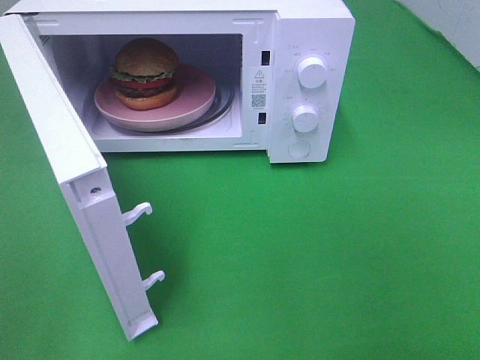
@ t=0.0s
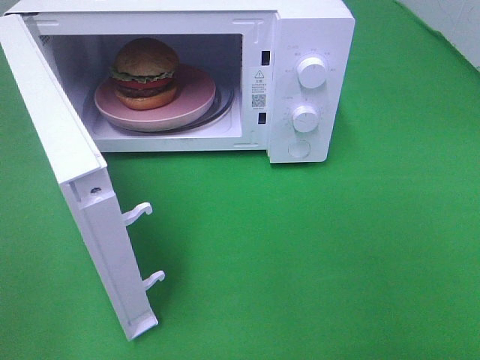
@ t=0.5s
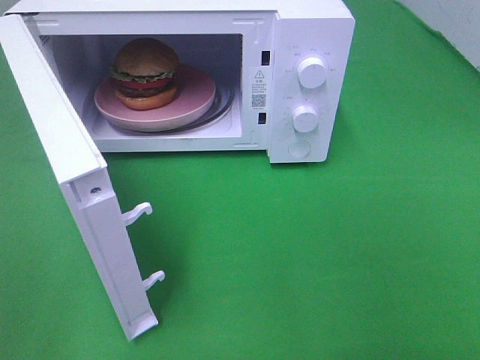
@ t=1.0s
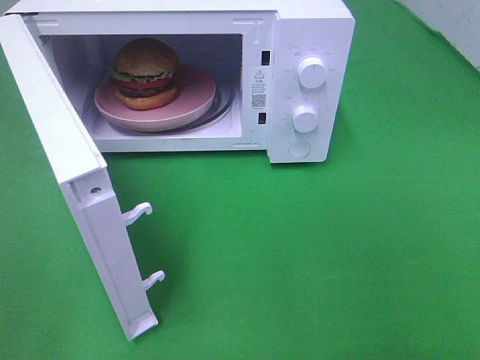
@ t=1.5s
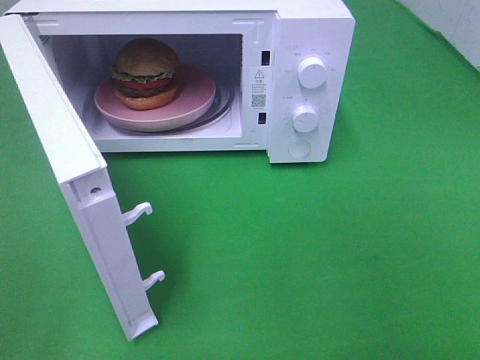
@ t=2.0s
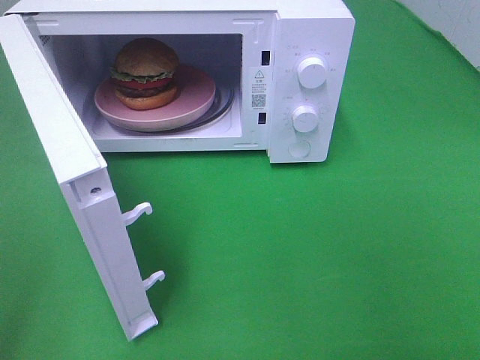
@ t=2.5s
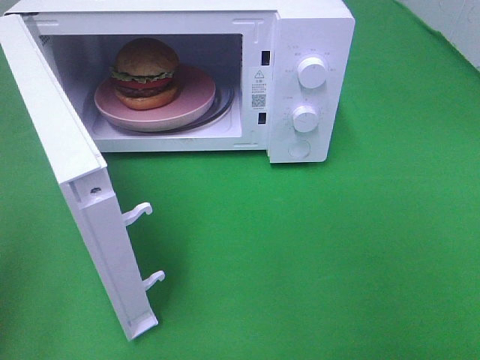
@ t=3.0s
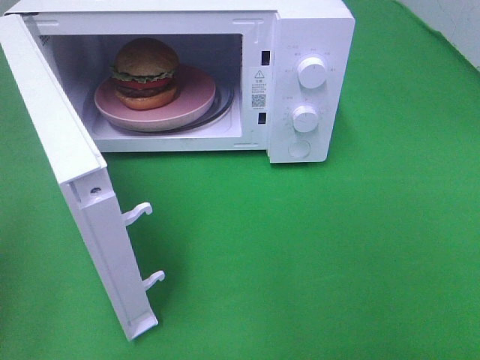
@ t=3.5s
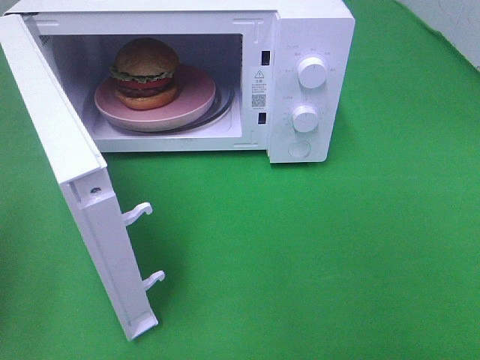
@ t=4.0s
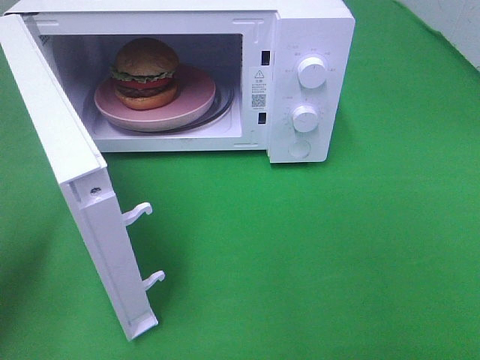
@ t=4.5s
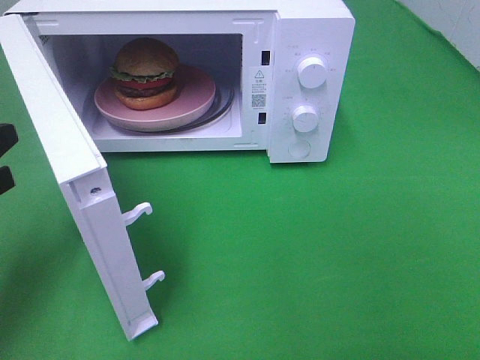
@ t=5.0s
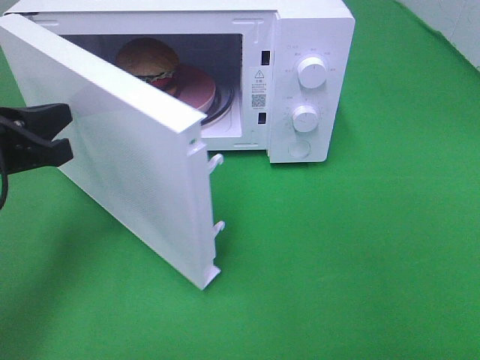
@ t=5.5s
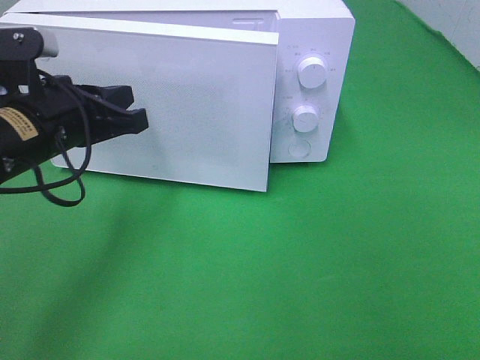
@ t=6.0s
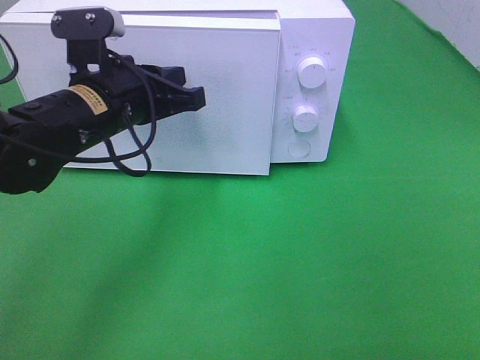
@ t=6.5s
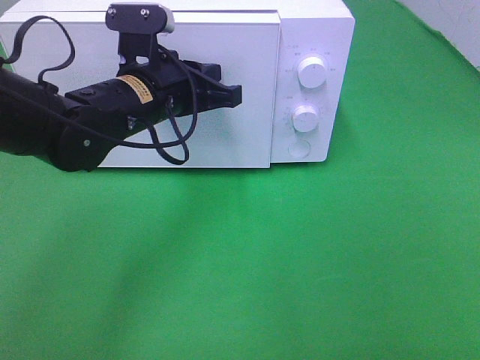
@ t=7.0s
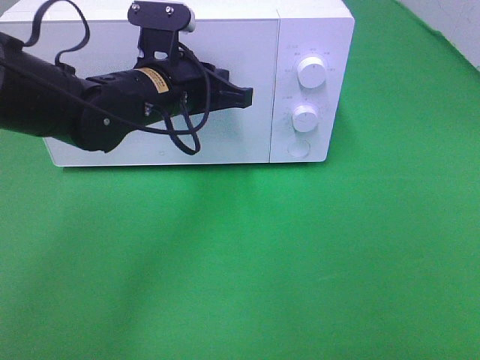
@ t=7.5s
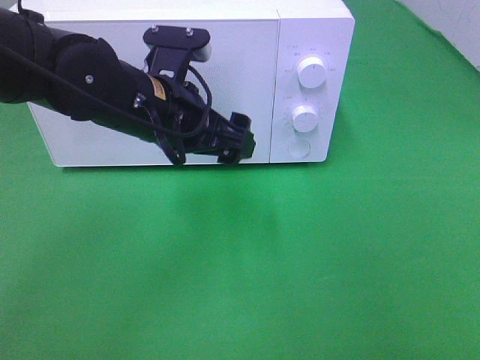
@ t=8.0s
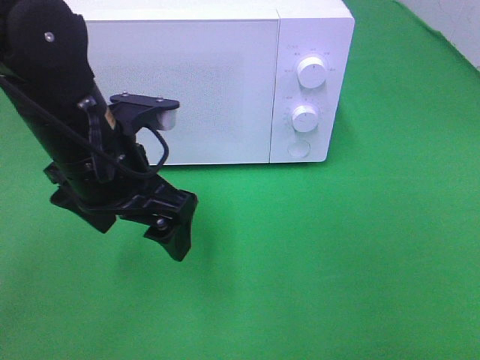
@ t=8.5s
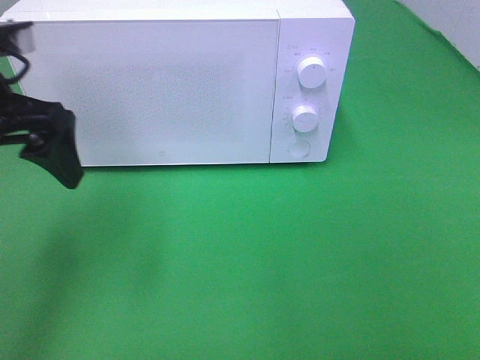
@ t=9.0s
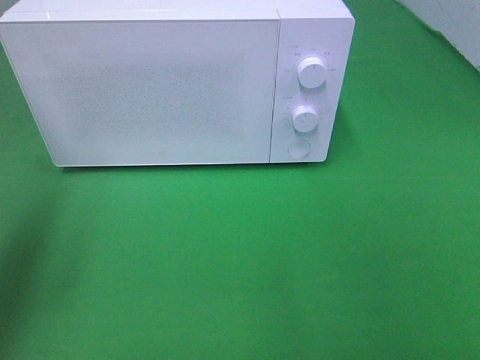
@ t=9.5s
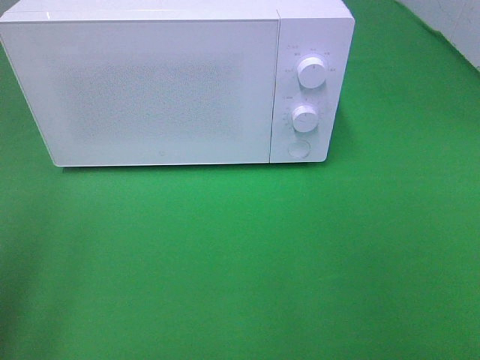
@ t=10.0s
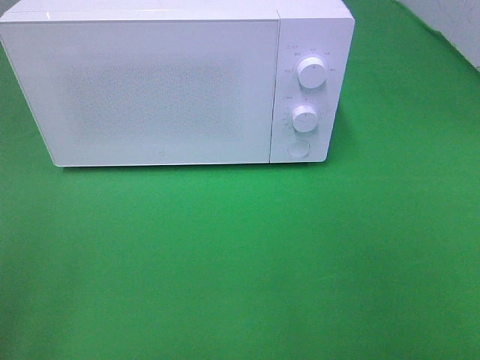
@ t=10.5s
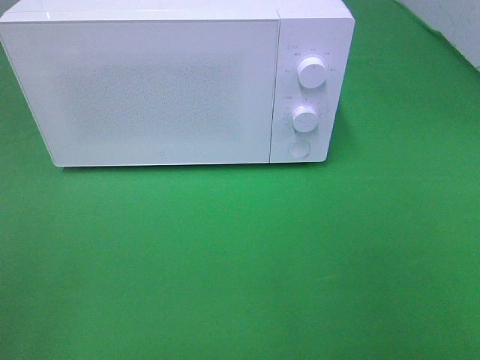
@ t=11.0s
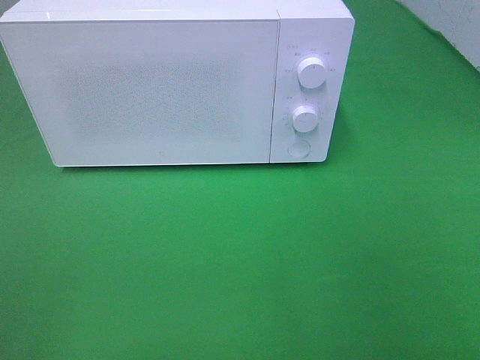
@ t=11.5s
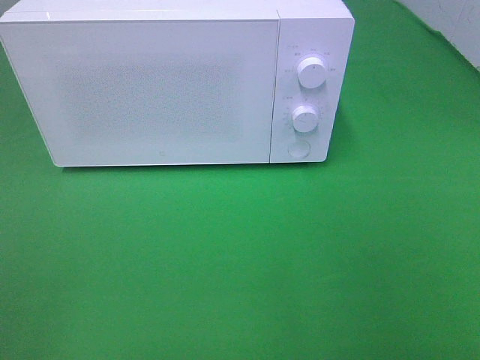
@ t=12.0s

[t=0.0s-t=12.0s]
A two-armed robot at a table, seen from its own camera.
Task of the whole recording: Heat the burger.
Step, t=0.0s to t=7.5s: Left hand: close the microwave door.
t=0.0s to t=2.0s: The two grippers keep their place.
t=4.0s to t=6.0s: The left gripper travels to the right and forward by roughly 20 cm.
t=6.0s to t=8.0s: The left gripper is displaced to the right by approximately 10 cm, and opens up.
t=8.0s to t=10.0s: The left gripper moves to the left and backward, some 30 cm.

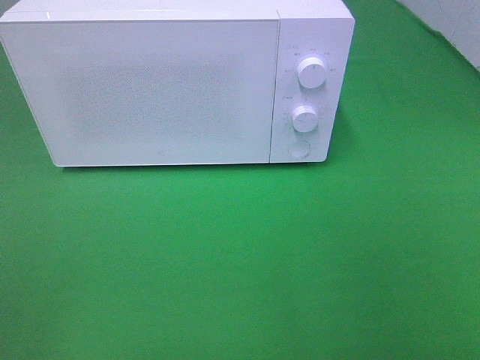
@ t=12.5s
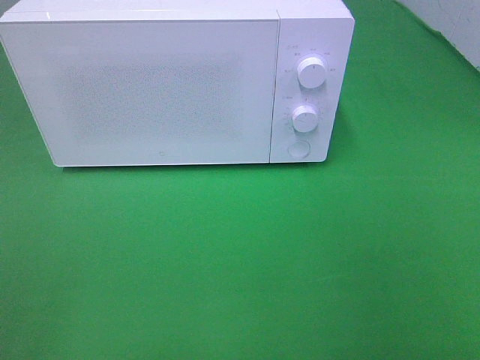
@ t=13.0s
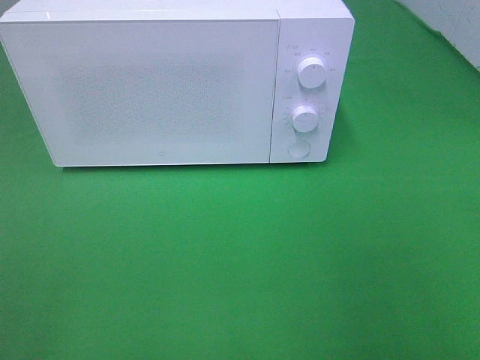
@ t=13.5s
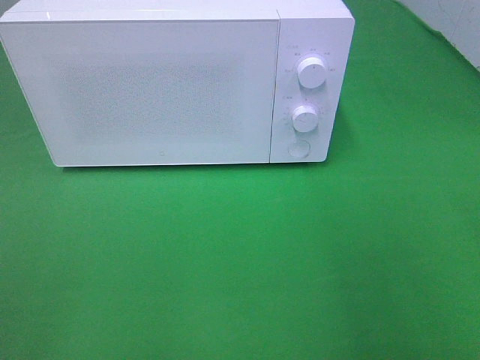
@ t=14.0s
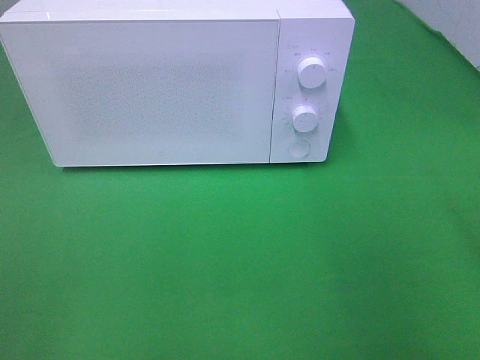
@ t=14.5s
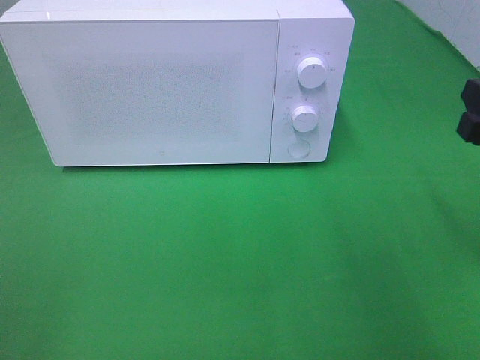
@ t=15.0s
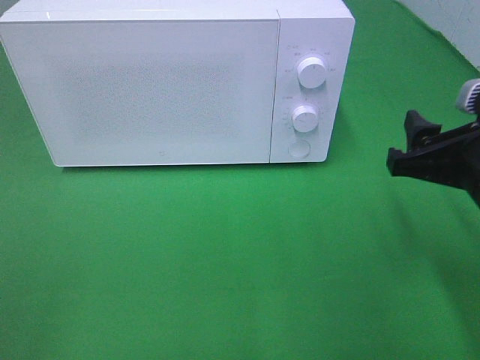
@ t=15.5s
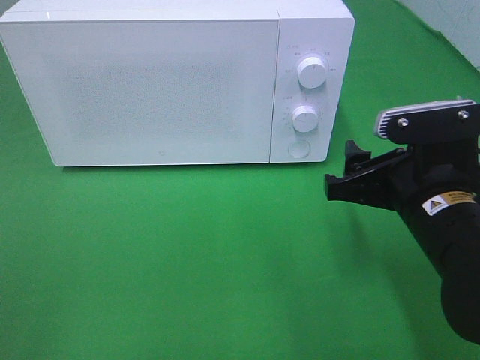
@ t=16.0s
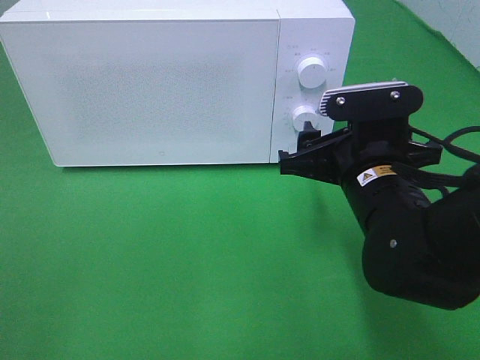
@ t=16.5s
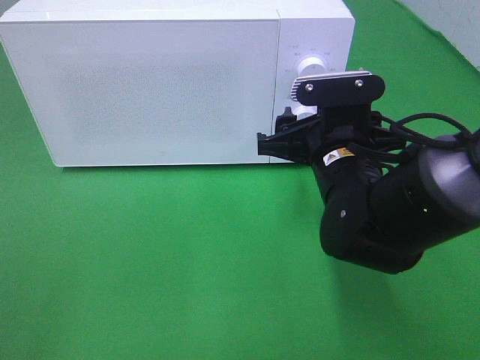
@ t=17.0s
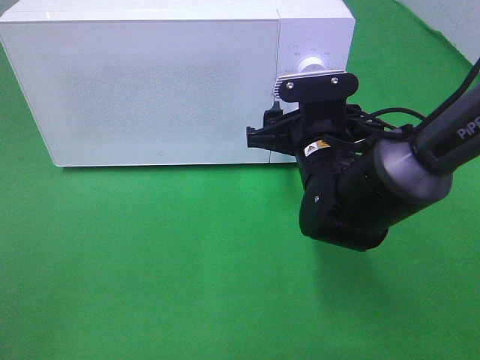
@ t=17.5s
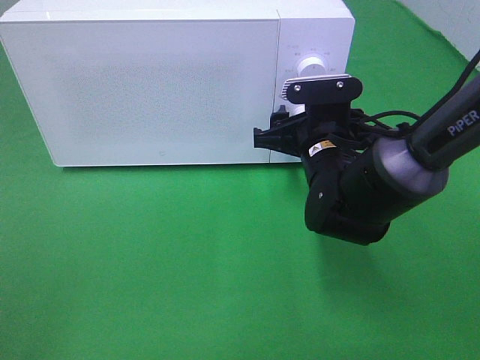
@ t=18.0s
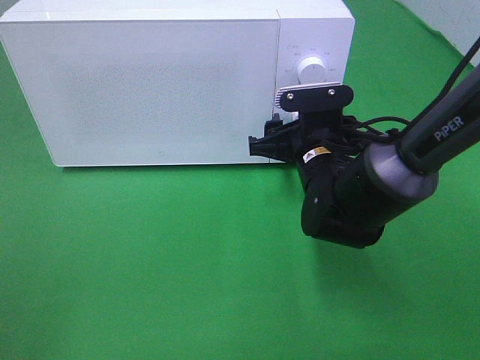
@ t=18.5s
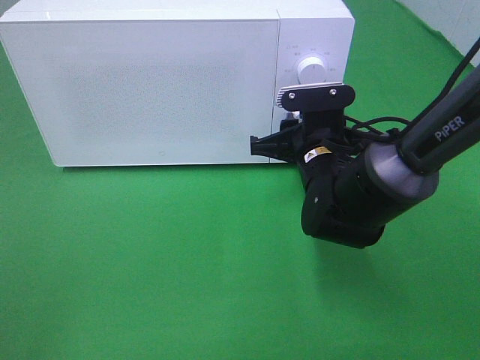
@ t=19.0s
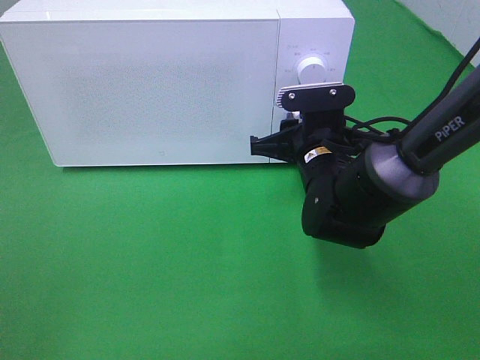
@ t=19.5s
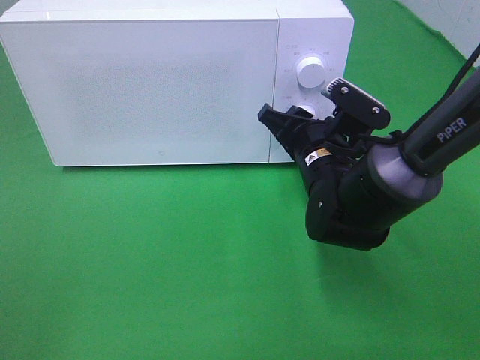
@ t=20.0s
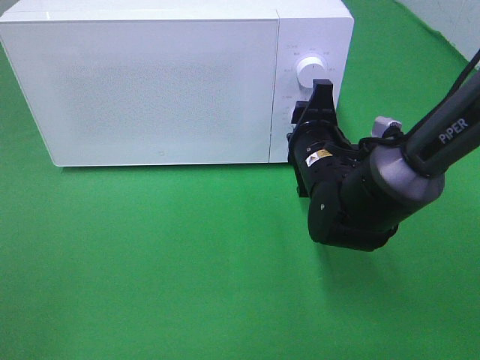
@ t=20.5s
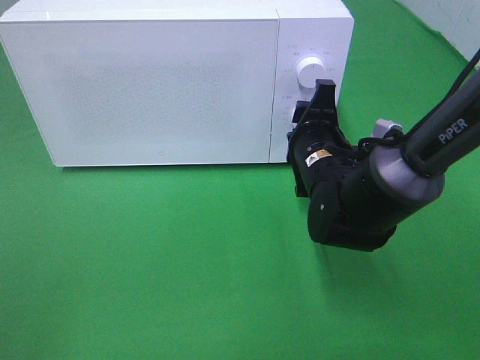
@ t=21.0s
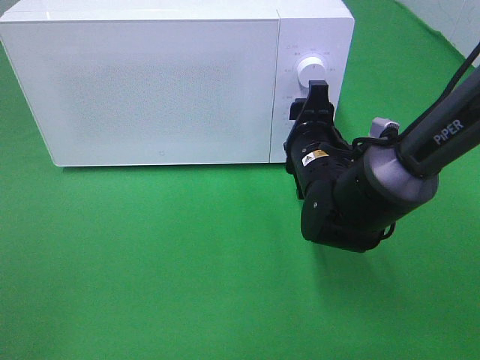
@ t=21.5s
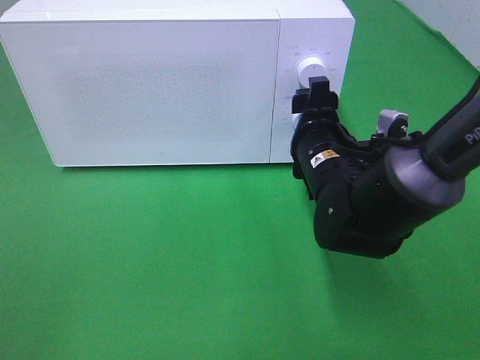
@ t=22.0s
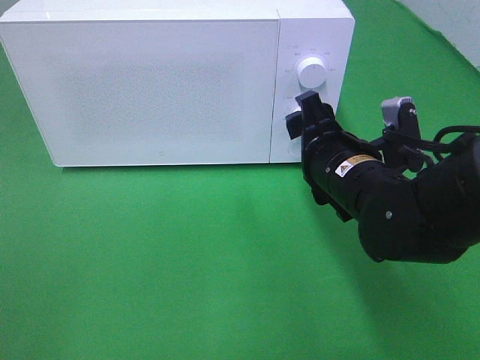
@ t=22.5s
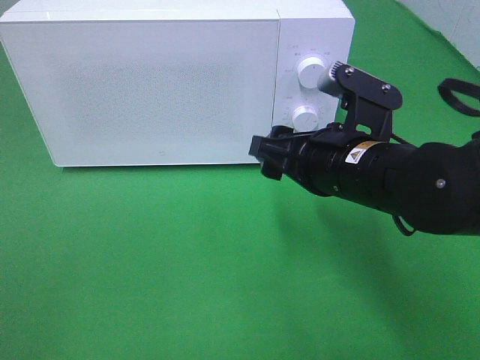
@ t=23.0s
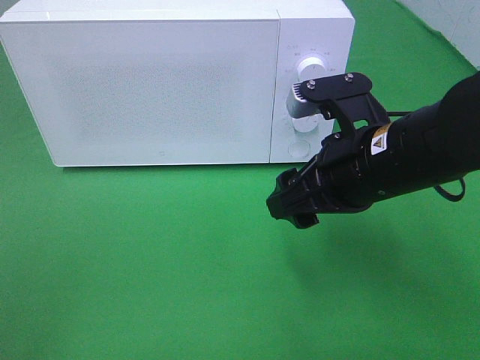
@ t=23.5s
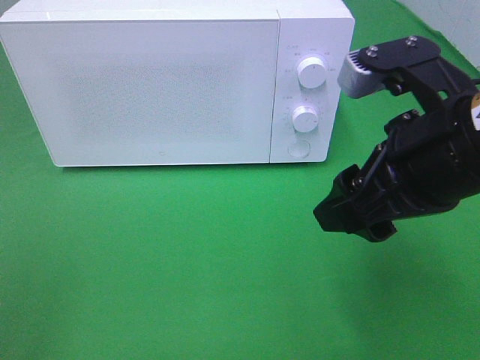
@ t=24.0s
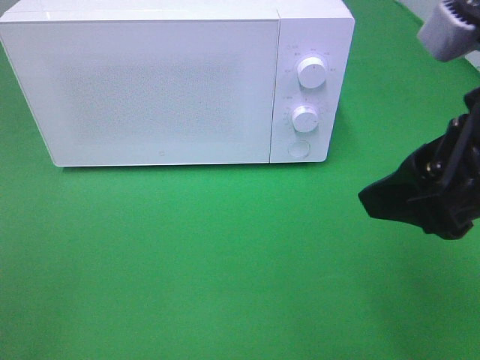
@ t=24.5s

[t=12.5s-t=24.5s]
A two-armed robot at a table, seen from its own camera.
Task of the whole recording: Heat the burger.
Step, t=12.5s to t=22.0s: Right hand: twist timer button.
t=14.5s to t=16.5s: The right gripper travels to the left, downward and forward by about 20 cm.
t=16.5s to t=18.5s: The right gripper is displaced forward by some 10 cm.
t=20.5s to t=22.5s: The right gripper travels backward by some 5 cm.
t=22.5s to t=24.5s: The right gripper heads upward, backward and to the right, covering roughly 20 cm.

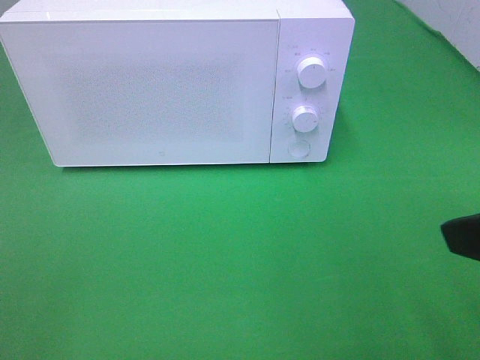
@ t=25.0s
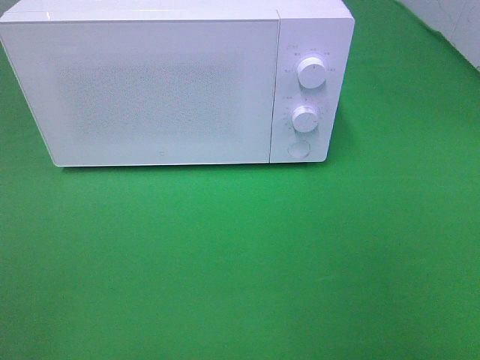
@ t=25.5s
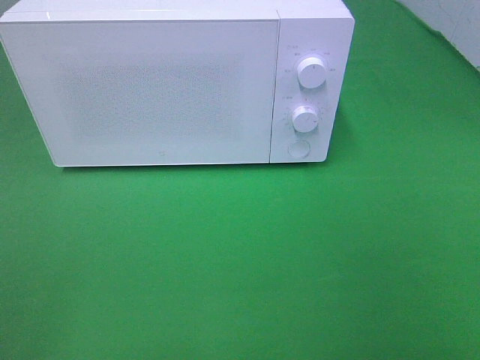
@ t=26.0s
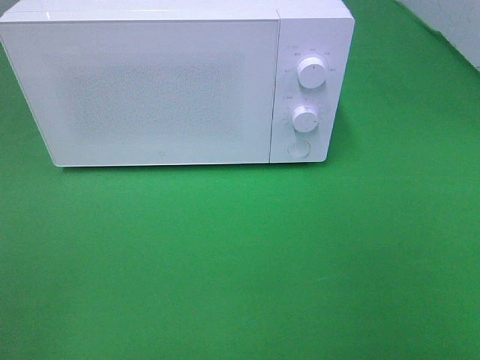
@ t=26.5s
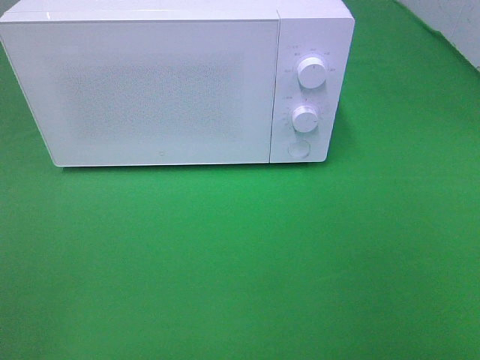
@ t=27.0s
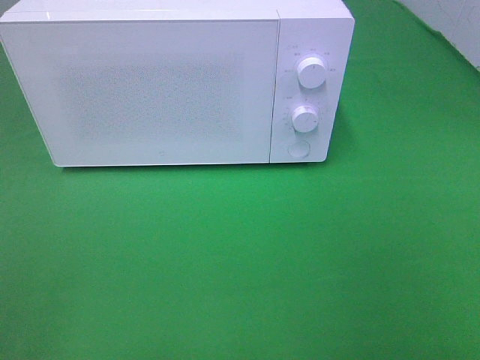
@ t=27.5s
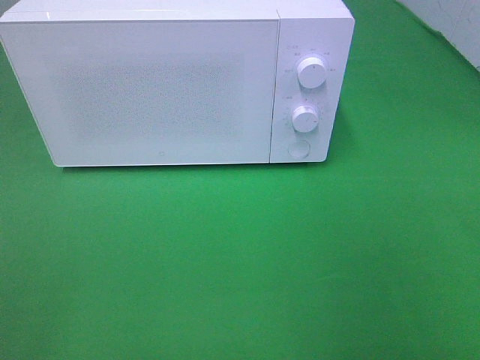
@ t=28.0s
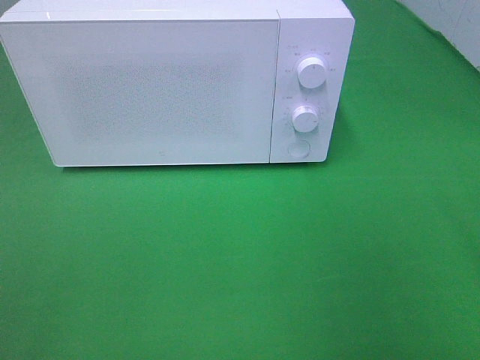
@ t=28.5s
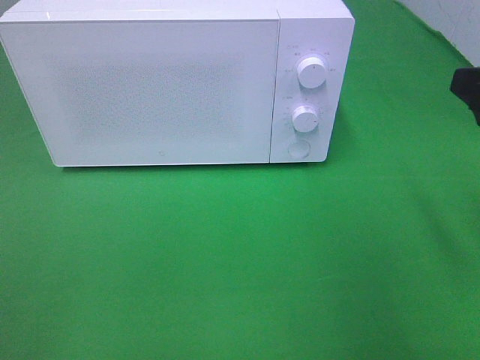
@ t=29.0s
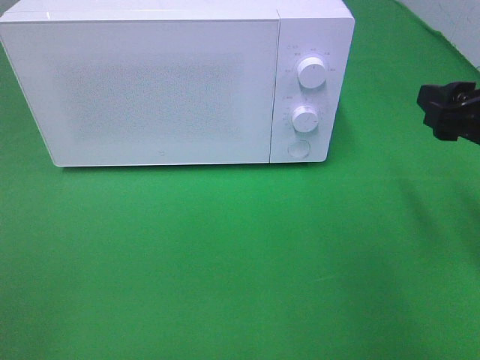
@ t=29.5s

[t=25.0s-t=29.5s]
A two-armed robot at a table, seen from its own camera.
Task of the whole recording: Heat the burger.
t=25.0s to t=27.0s: The right gripper travels backward and to the right by some 10 cm.
t=27.0s to t=29.5s: The right gripper shifts some 20 cm forward.
